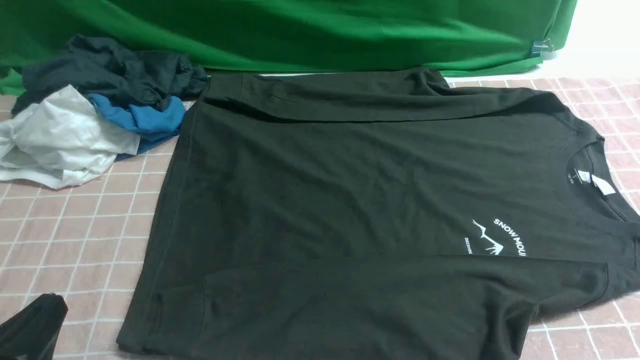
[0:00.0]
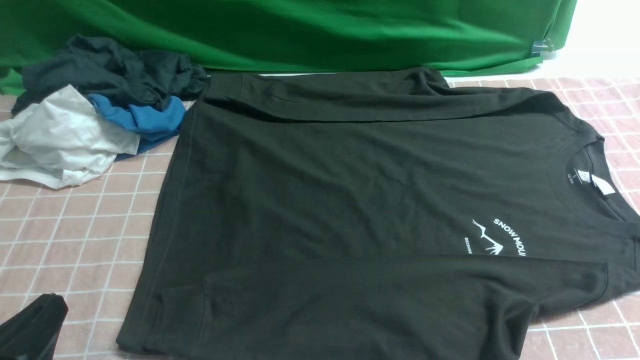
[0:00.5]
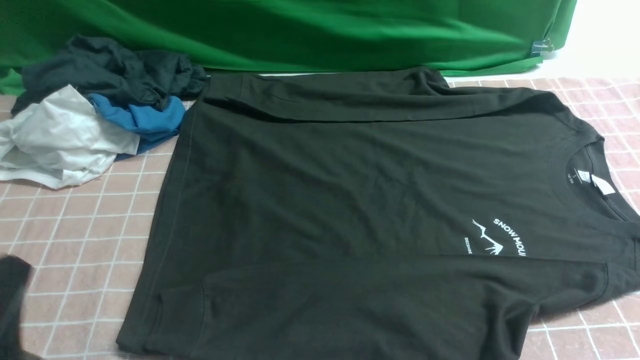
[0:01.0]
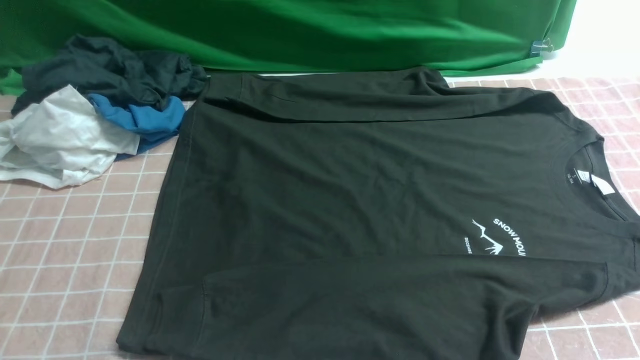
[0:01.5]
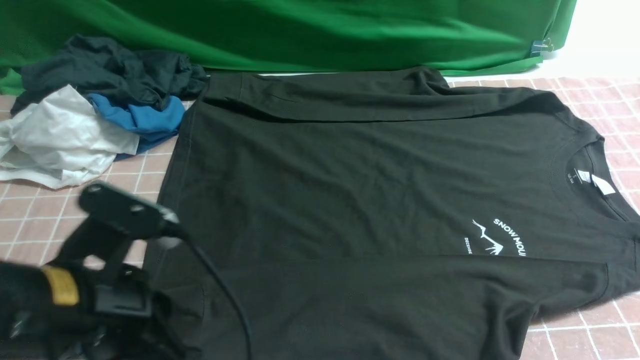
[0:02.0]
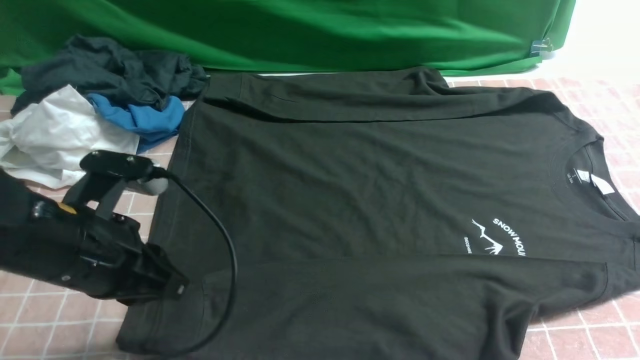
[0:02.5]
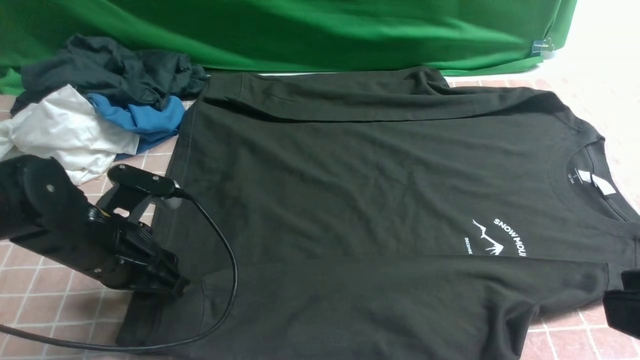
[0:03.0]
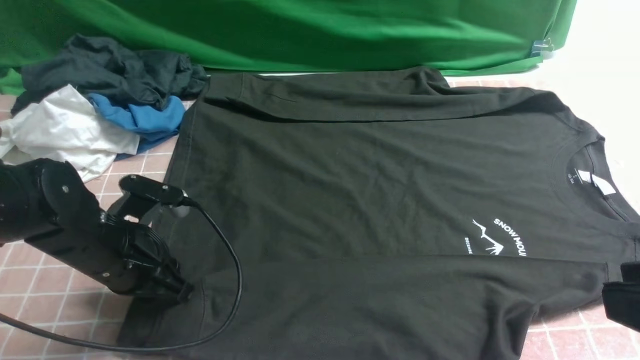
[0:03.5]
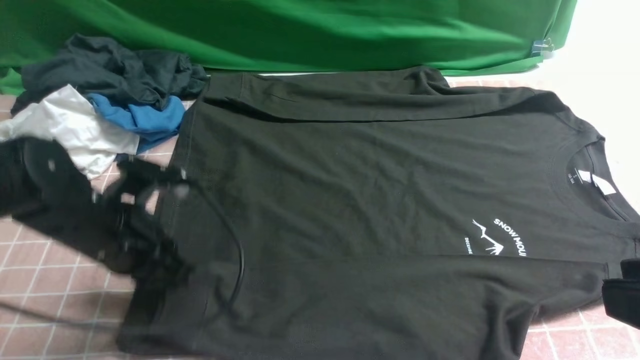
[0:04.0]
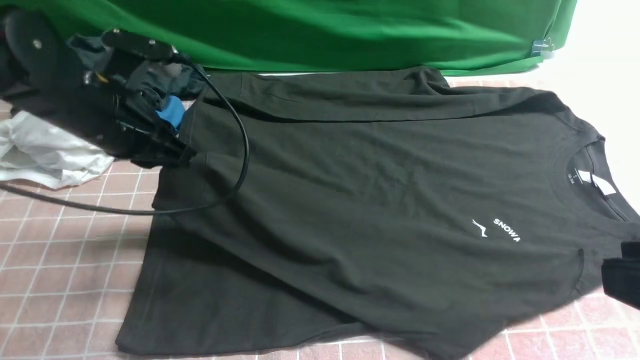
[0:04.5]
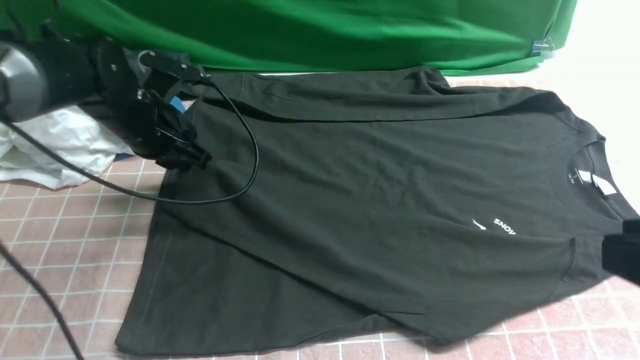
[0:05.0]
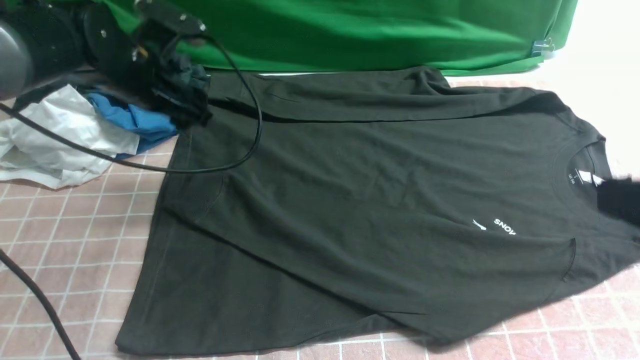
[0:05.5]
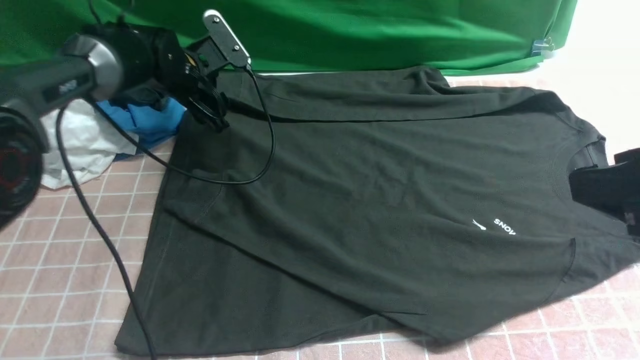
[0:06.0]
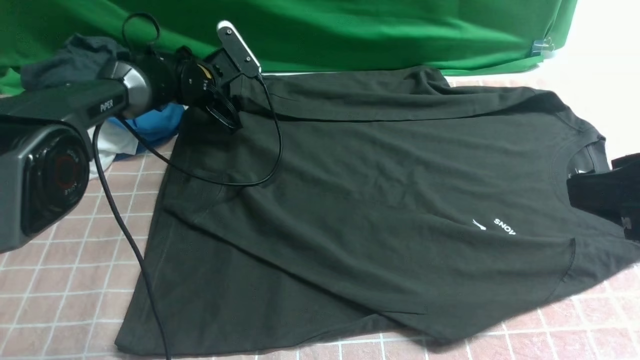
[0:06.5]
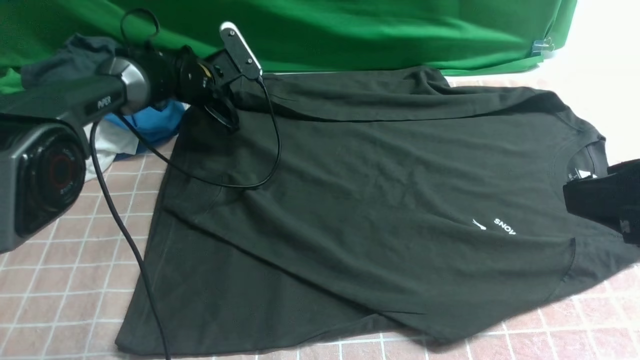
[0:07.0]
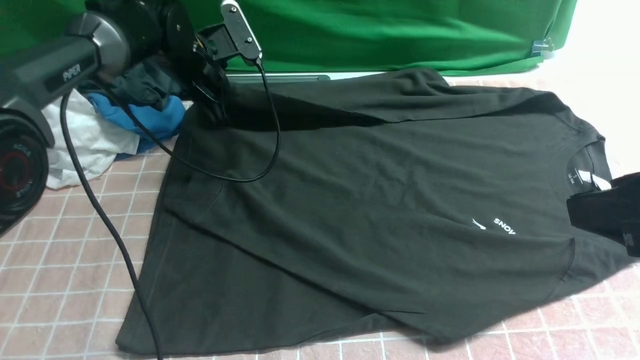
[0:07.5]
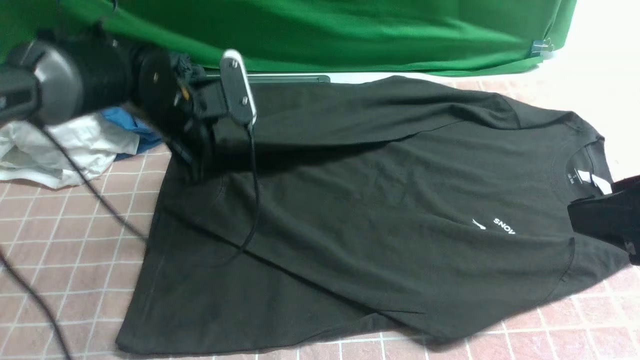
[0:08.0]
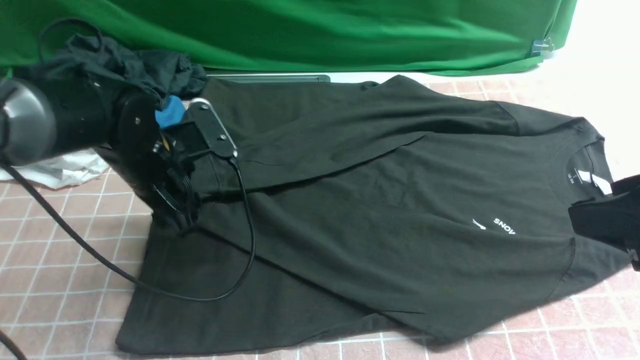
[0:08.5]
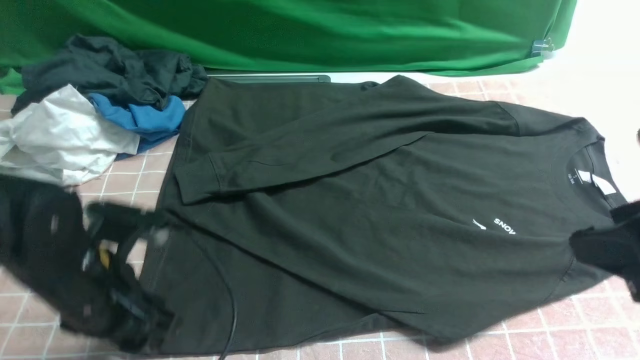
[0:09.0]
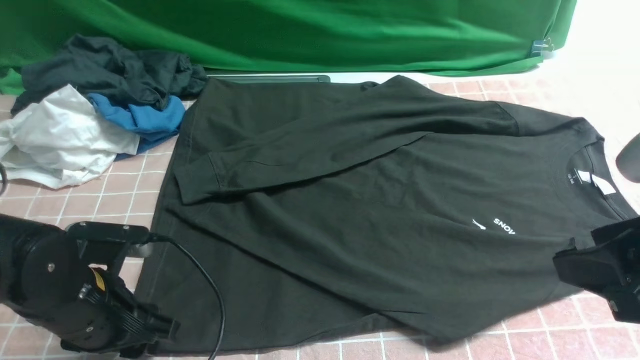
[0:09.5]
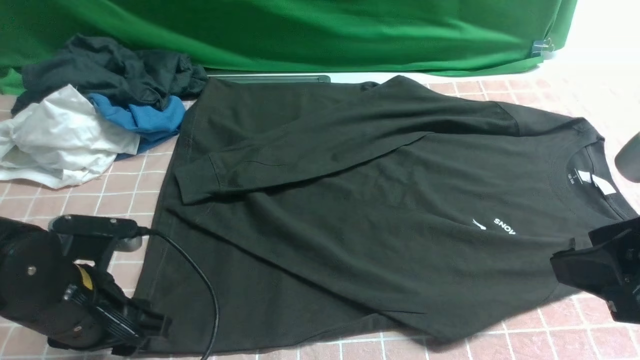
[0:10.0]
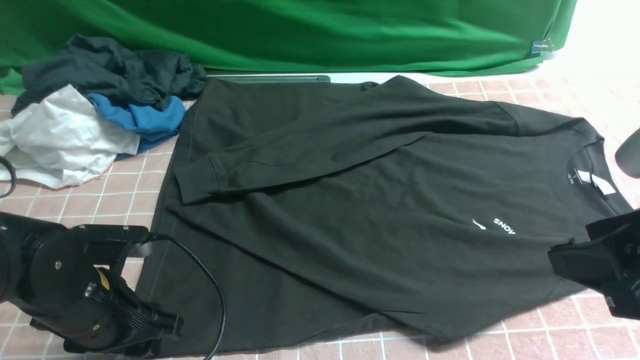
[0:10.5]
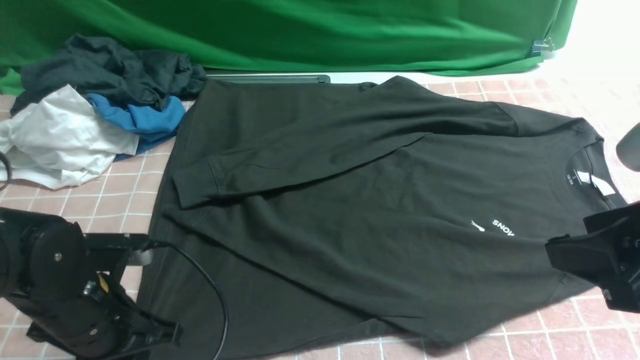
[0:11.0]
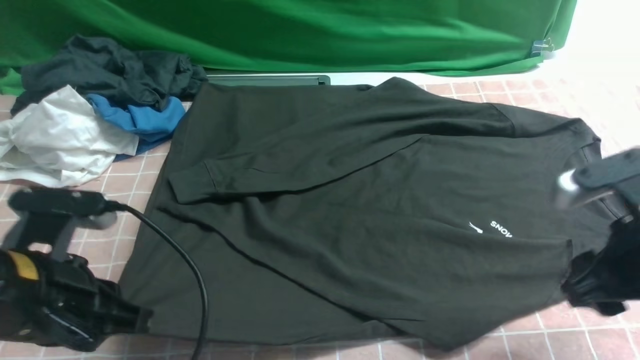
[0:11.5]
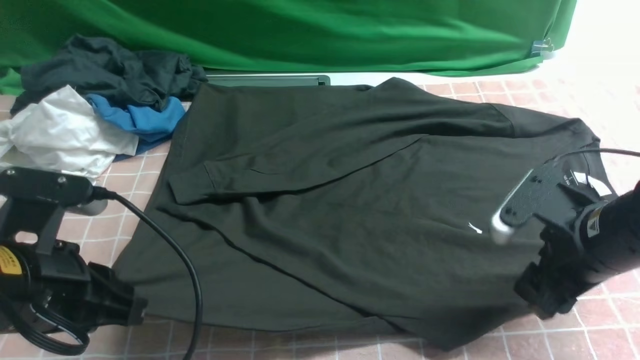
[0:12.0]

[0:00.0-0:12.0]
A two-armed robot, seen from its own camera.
Step, 0:00.0 to 0:04.0: use the left arm to clamp the cuff closest to it.
Step, 0:04.5 to 0:05.0: use the left arm to drag and place the cuff at the centered position on the left edge of the fabric.
Step, 0:05.5 to 0:06.5: use the left arm to clamp the cuff farthest from it.
Step, 0:07.0 to 0:08.5: use the left arm to drag and drop the cuff onto the cuff closest to the left arm.
0:00.0 to 0:02.0: The left gripper goes some 15 cm forward, upward and to the right.
0:02.0 to 0:04.0: The left gripper travels forward and downward by about 15 cm, and opens, then closes once more. Meanwhile the right gripper heads upward and to the left, covering roughly 15 cm.
0:04.0 to 0:06.0: The right gripper heads forward, covering approximately 5 cm, and opens; the left gripper travels forward by roughly 25 cm, and opens its fingers.
0:06.0 to 0:08.0: The left gripper travels backward by approximately 10 cm, and closes up.
0:08.0 to 0:10.0: The left gripper is displaced backward by about 20 cm, and opens its fingers.
0:10.0 to 0:12.0: The right gripper shifts some 15 cm downward and forward, while the left gripper is displaced upward by some 10 cm, and closes its fingers.

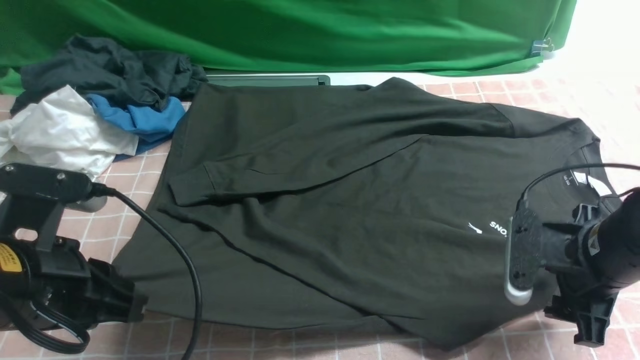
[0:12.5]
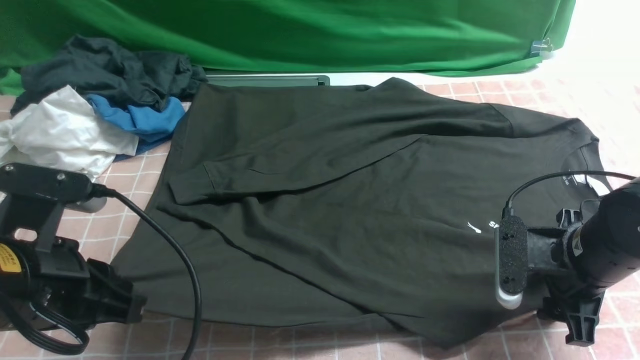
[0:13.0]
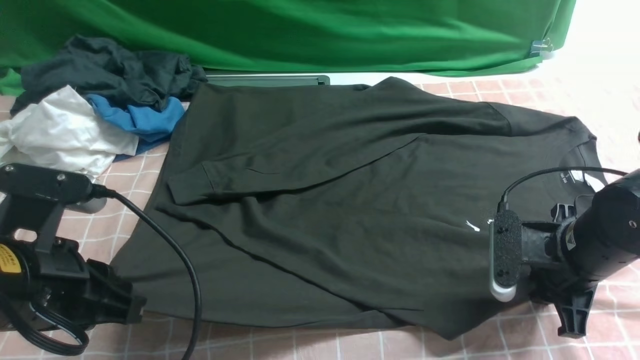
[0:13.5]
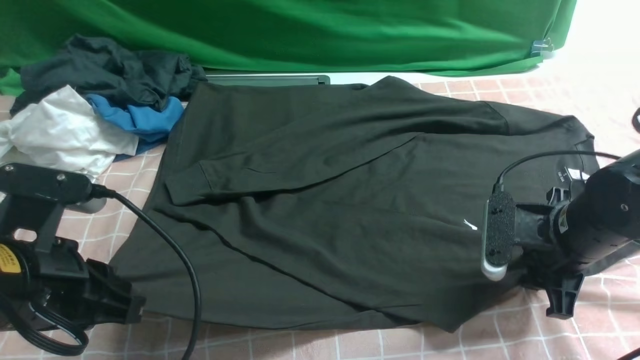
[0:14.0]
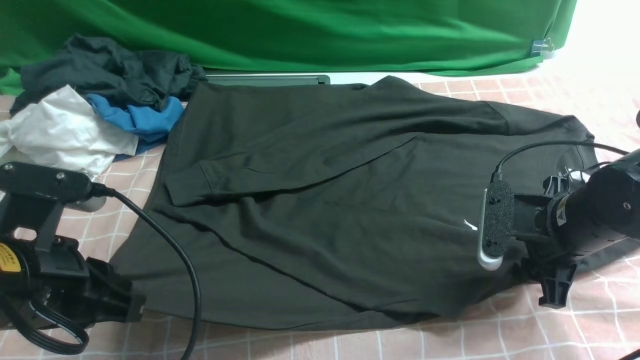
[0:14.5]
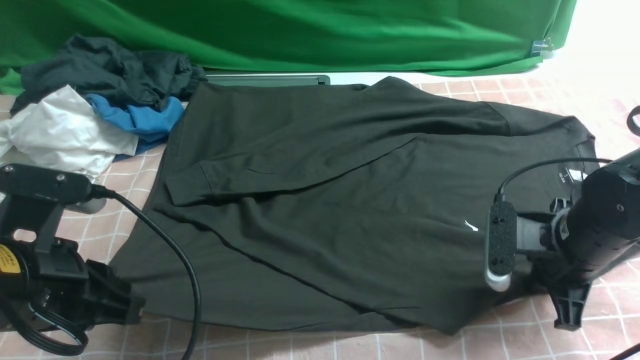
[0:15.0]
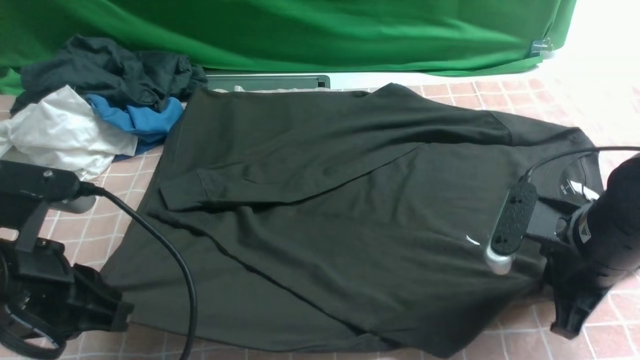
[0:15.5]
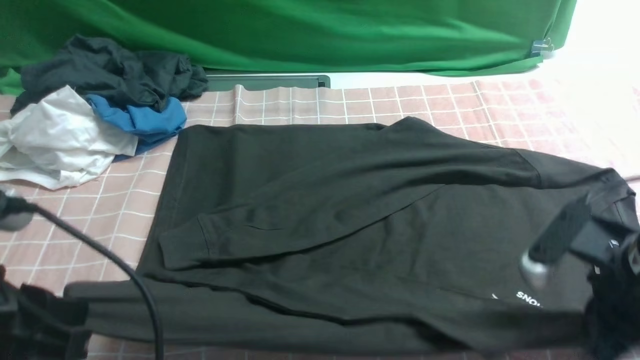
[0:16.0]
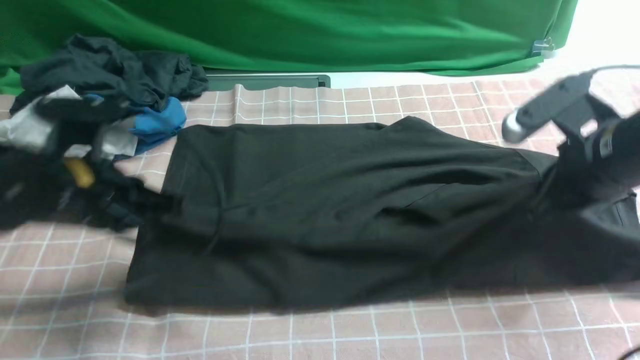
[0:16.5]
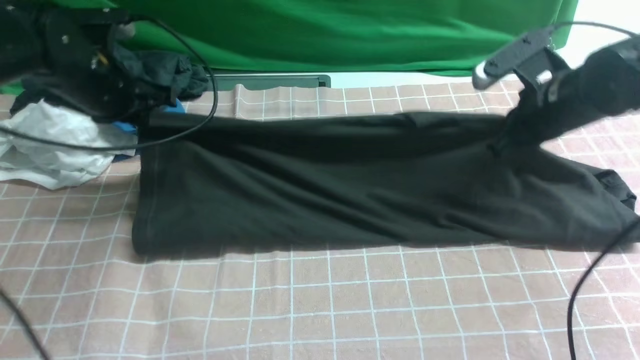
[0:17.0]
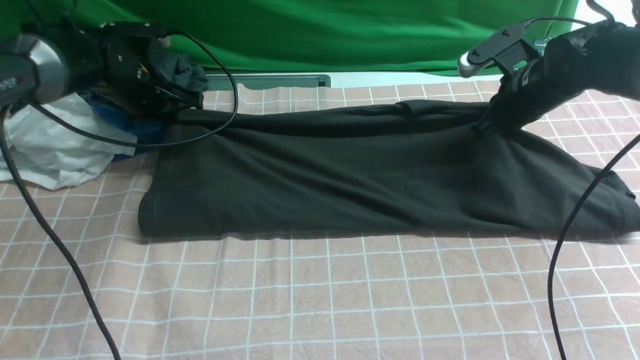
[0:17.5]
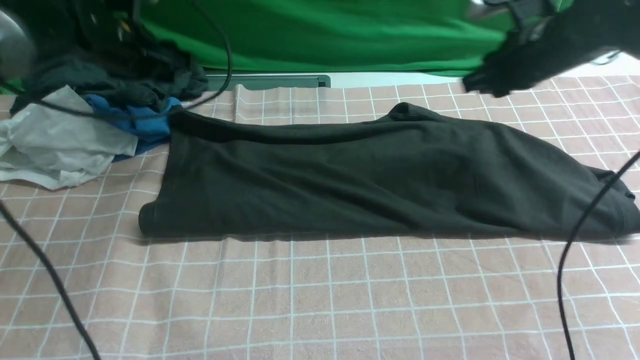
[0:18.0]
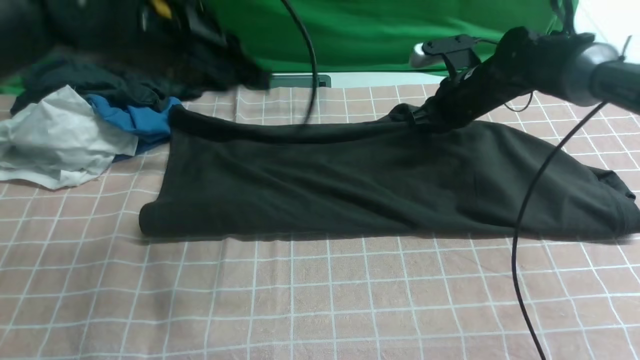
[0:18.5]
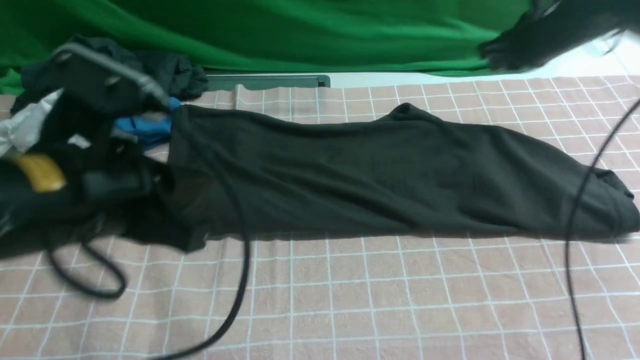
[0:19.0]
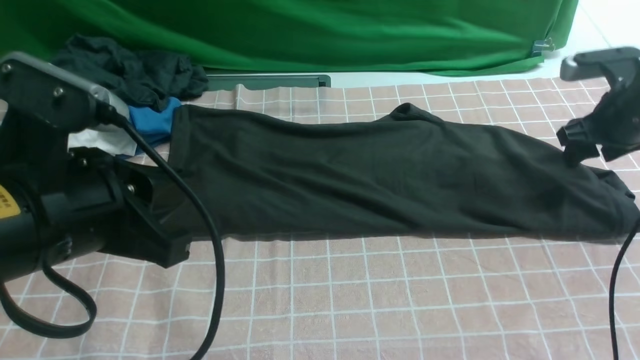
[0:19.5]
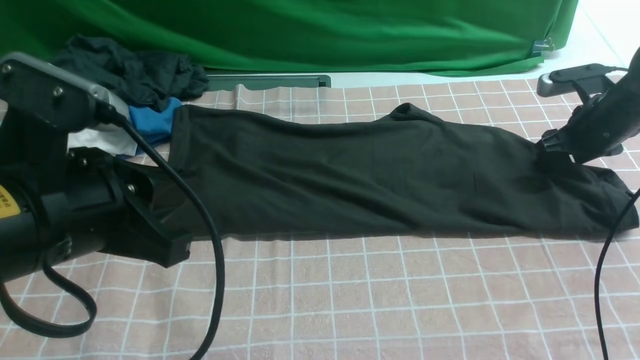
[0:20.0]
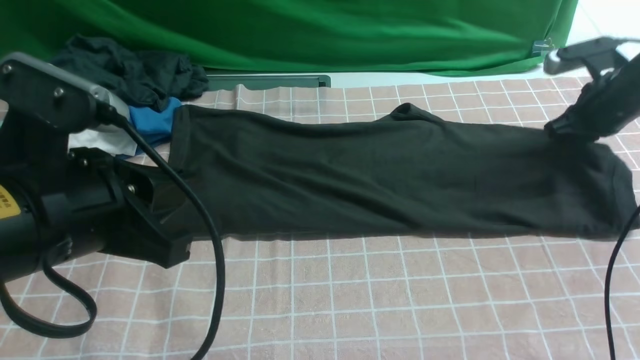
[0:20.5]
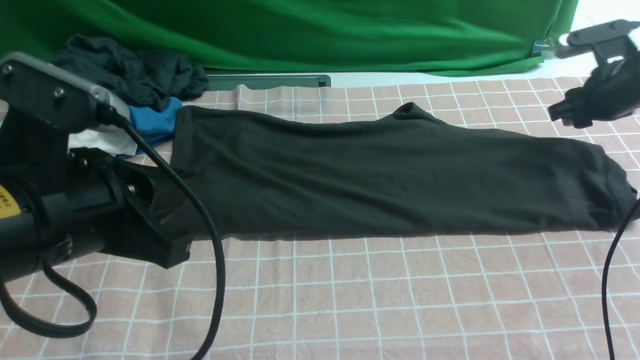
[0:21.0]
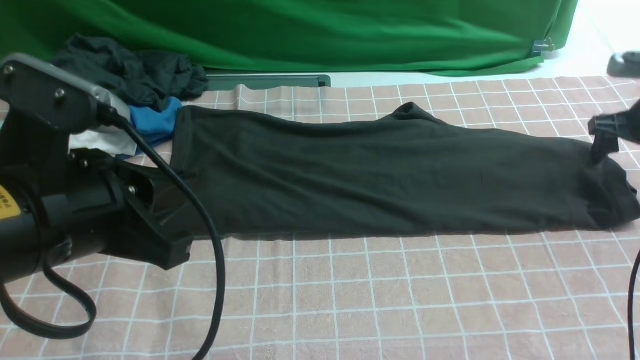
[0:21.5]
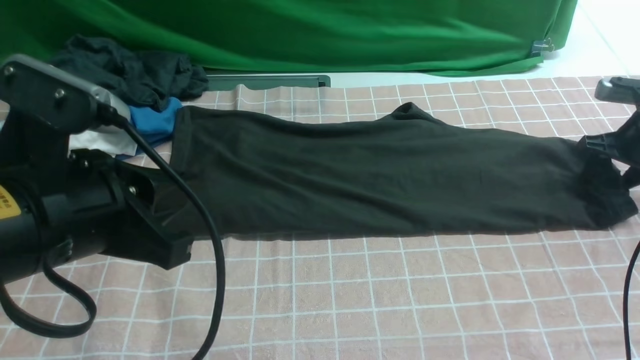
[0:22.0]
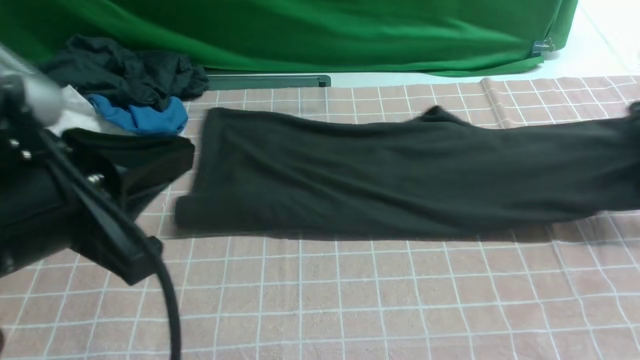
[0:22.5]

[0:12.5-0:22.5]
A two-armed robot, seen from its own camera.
Step, 0:12.5 to 0:15.0: use both arms simultaneously to clamp the lower edge of the clothing fabric.
Step, 0:15.5 to 0:17.5: use both arms to drag the lower edge of the fabric forward and fold it over the upper edge.
Step, 0:18.0 to 0:22.0: use the right arm to clamp the right edge of the fabric.
0:12.5 to 0:14.5: There are only small adjustments of the grippers.
0:14.5 to 0:16.5: The right gripper travels upward by roughly 10 cm, reaches some 5 cm backward, then returns, and closes up. Meanwhile the left gripper goes some 10 cm forward.
0:16.5 to 0:18.5: The left gripper shifts approximately 10 cm to the right and upward, moves about 20 cm forward and comes back, and opens, then closes once more; the right gripper shifts approximately 20 cm forward.
0:18.5 to 0:20.5: The left gripper travels backward by approximately 15 cm. The right gripper travels to the right by roughly 15 cm, and opens, then closes again.
0:20.5 to 0:22.5: The right gripper is displaced to the right, upward and backward by some 10 cm, and opens, then closes once more.
